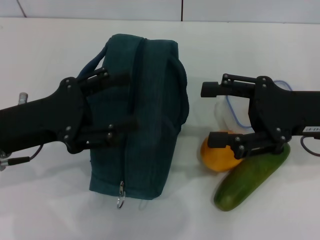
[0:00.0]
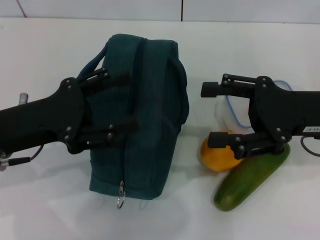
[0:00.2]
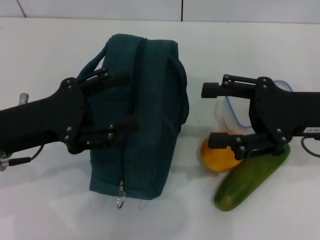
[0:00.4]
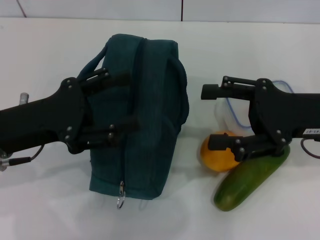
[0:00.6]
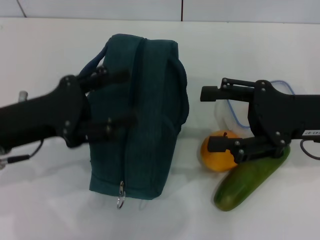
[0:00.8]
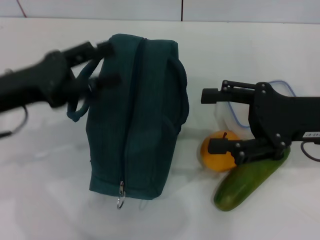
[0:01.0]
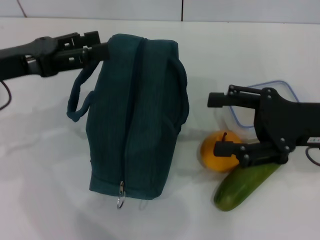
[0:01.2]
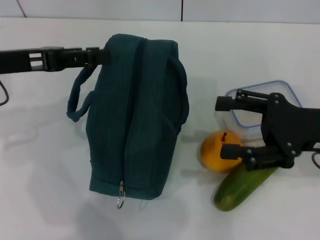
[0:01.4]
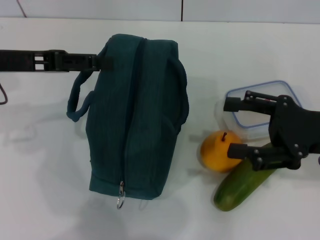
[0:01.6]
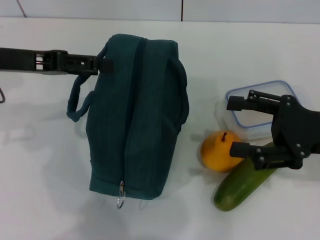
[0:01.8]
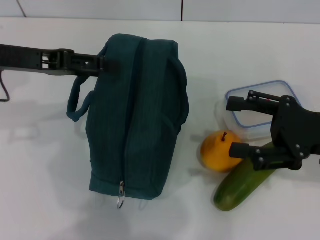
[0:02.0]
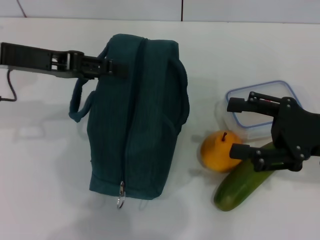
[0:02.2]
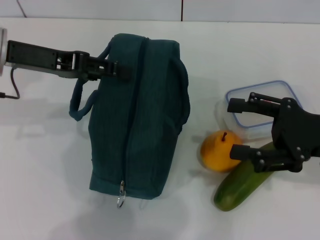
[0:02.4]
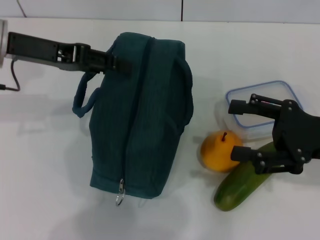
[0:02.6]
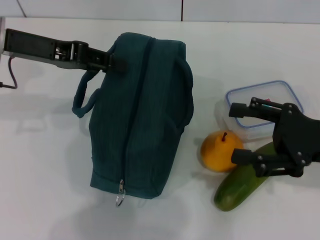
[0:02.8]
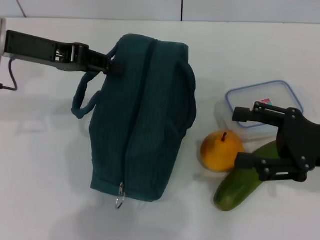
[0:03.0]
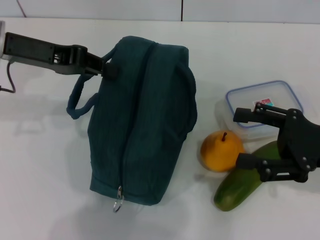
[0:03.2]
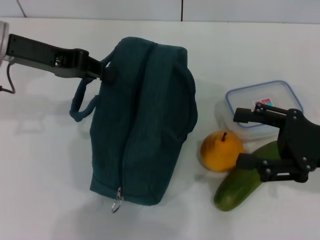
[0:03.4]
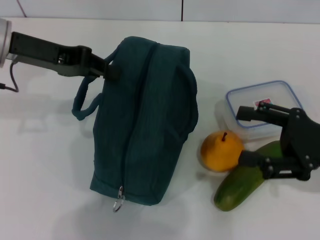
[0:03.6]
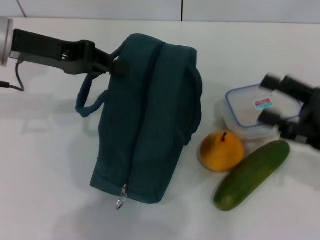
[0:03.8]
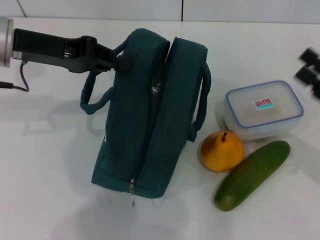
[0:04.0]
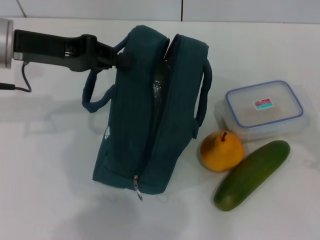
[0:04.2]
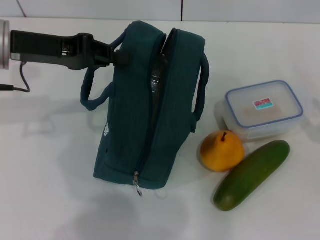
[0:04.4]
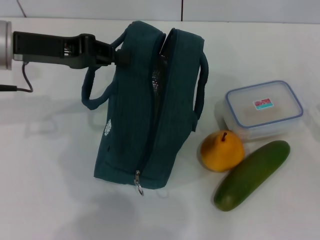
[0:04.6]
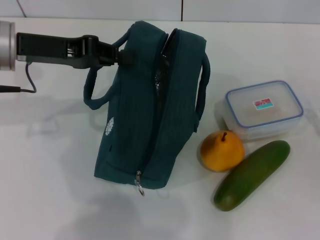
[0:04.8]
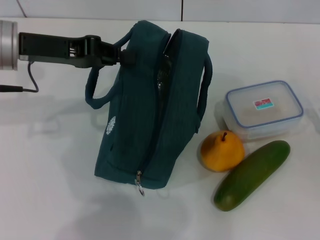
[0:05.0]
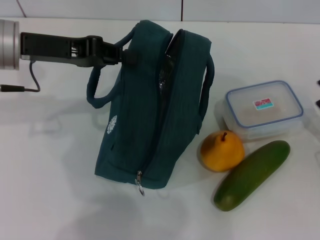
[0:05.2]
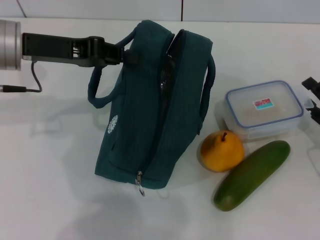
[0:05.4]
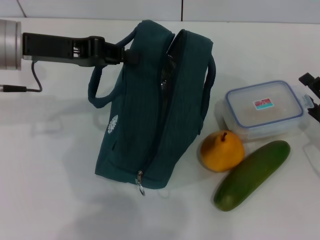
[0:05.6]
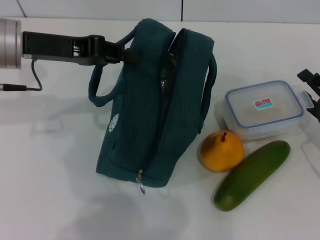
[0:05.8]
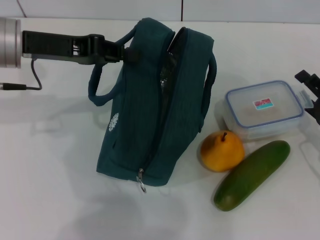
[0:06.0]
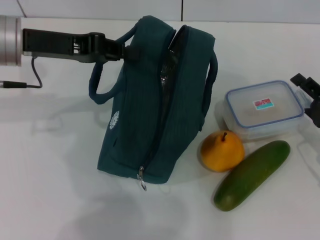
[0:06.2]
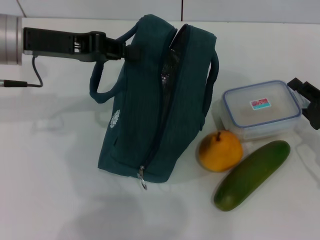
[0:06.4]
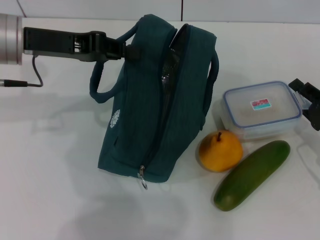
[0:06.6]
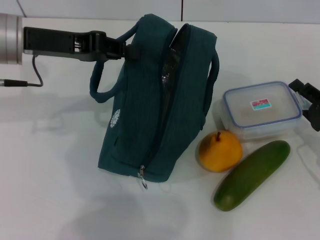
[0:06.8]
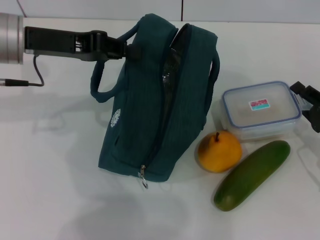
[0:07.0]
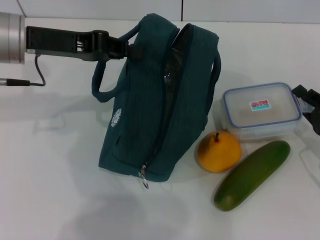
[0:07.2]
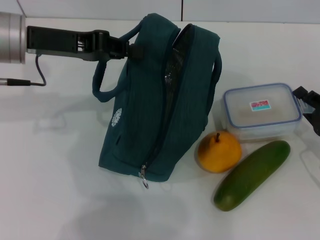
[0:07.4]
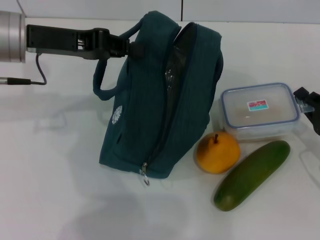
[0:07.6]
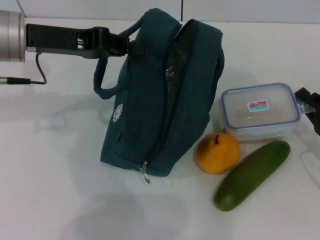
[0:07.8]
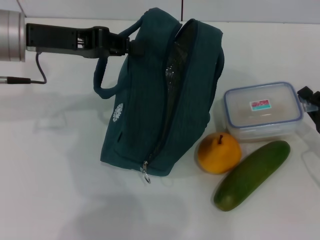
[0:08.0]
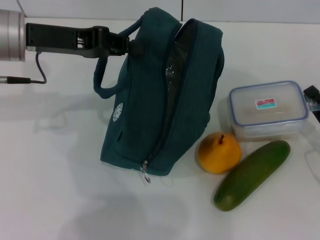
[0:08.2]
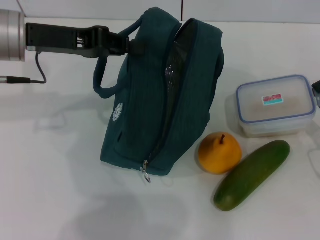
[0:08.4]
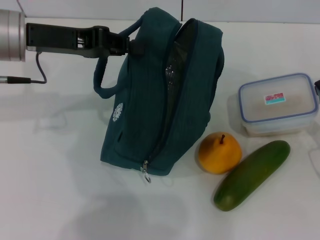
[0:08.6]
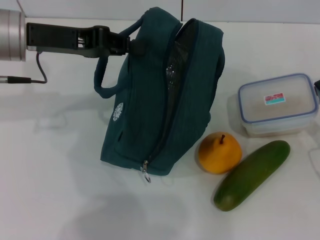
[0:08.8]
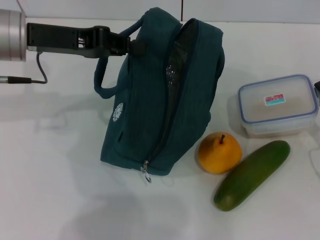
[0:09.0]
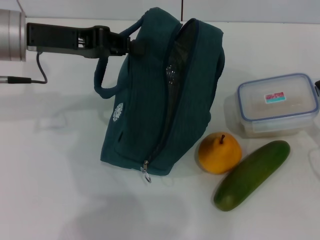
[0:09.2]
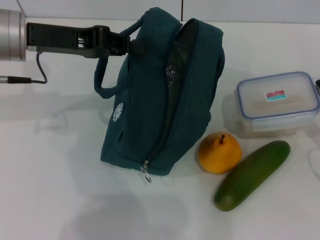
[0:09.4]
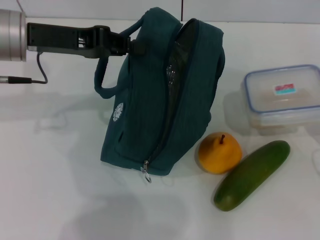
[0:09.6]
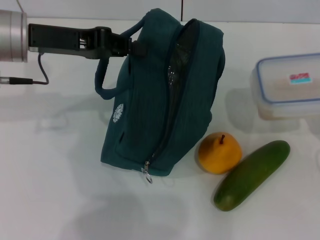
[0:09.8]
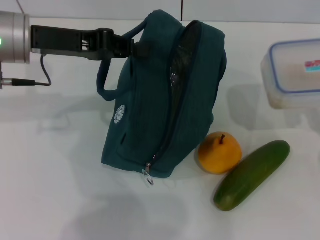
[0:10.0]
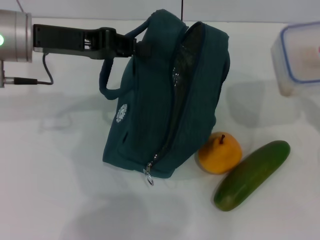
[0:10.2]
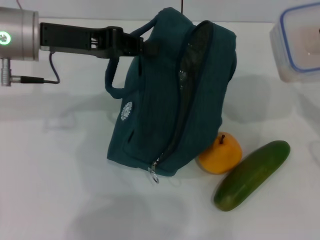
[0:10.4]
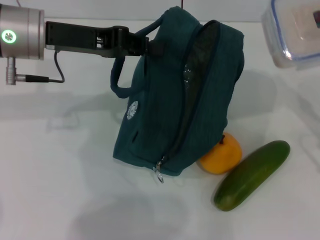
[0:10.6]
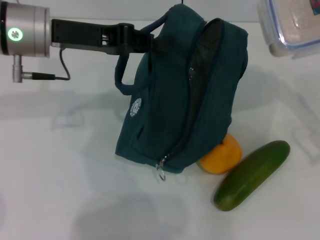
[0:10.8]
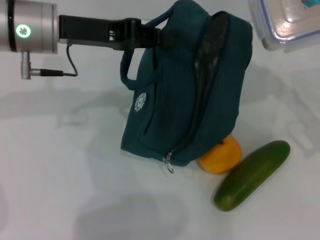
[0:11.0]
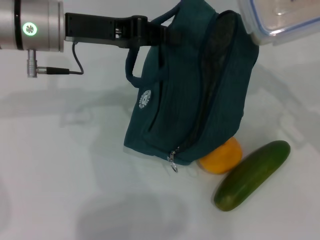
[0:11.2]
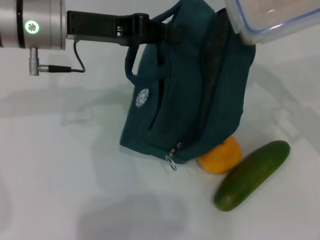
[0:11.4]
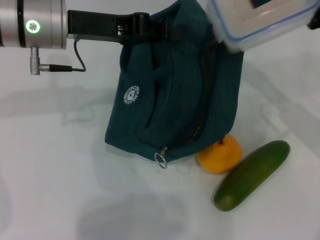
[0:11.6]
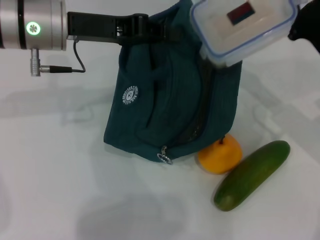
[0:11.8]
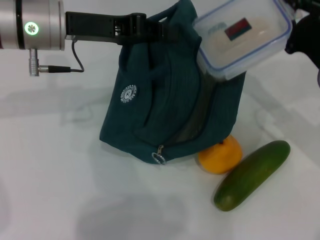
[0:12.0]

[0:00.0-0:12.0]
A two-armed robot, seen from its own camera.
Step, 0:00.0 to 0:03.6: Hold the lunch bag with your left hand.
Step, 0:03.8 to 0:08.0: Pick up the lunch box with your right hand.
0:00.0 to 0:01.6: The left gripper heads forward and upward, covering approximately 10 cm.
0:01.6 to 0:03.0: The left gripper closes.
0:03.0 to 0:04.4: The left gripper closes its fingers; the right gripper goes approximately 10 cm to the right and downward.
0:04.4 to 0:06.0: The right gripper moves forward, roughly 5 cm.
0:06.0 to 0:07.6: The right gripper closes.
0:07.6 to 0:09.0: The grippers stay close to where they were, moving slightly.
0:09.0 to 0:10.4: The right gripper goes some 5 cm upward.
0:10.4 to 0:12.0: The right gripper heads to the left and forward, covering some 10 cm.

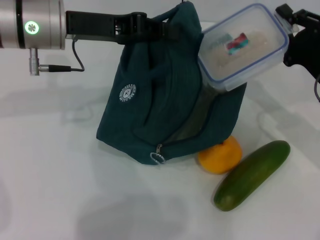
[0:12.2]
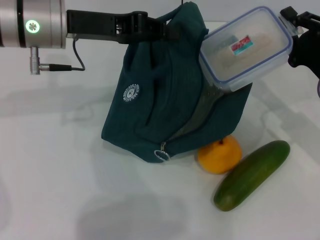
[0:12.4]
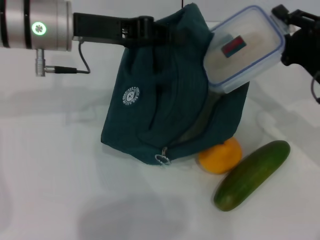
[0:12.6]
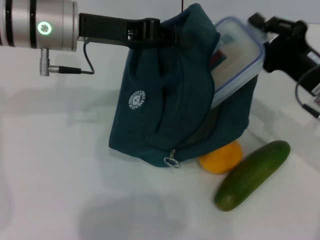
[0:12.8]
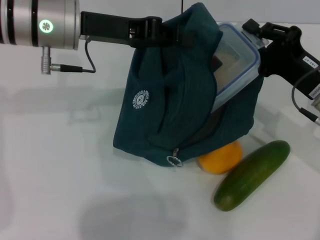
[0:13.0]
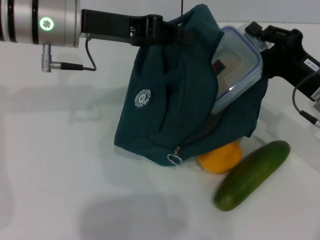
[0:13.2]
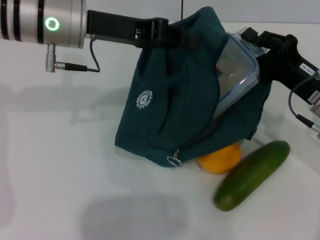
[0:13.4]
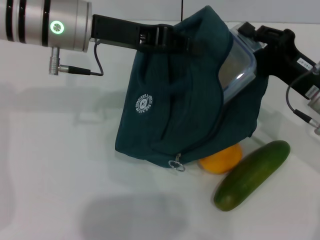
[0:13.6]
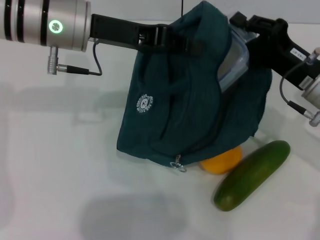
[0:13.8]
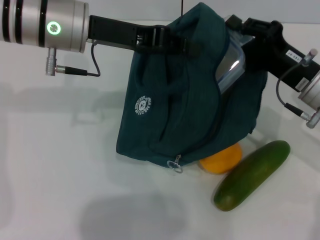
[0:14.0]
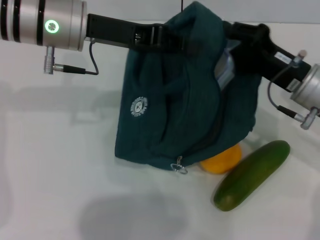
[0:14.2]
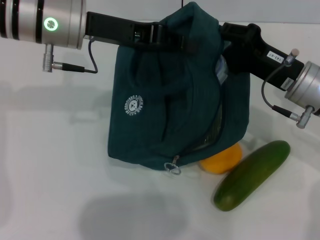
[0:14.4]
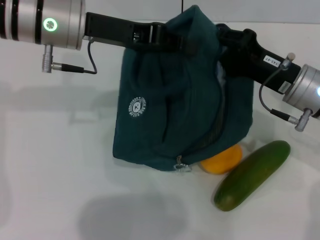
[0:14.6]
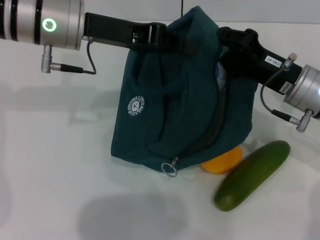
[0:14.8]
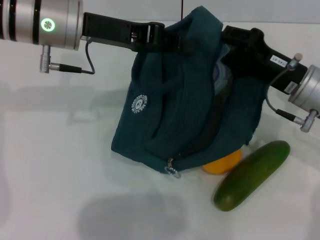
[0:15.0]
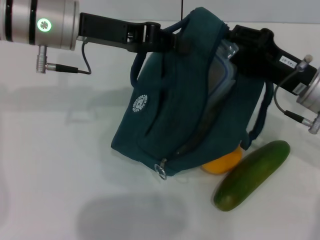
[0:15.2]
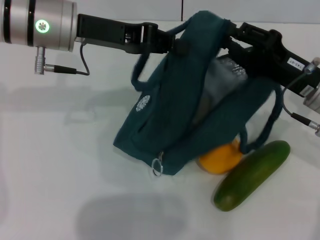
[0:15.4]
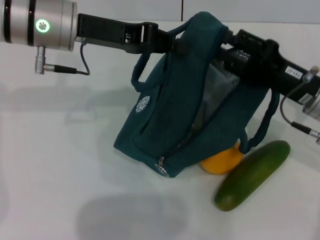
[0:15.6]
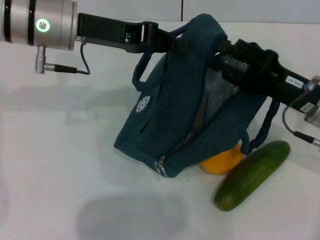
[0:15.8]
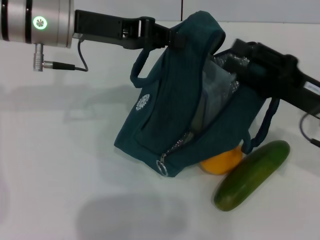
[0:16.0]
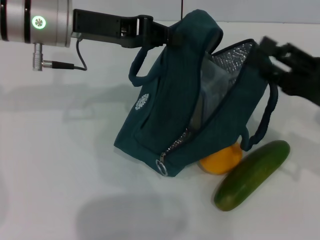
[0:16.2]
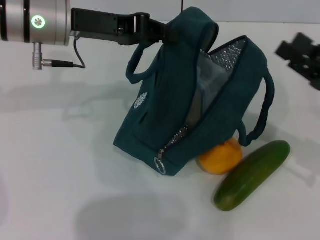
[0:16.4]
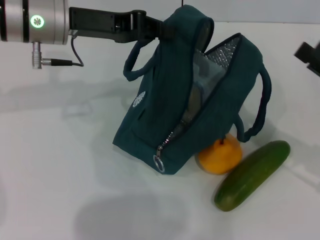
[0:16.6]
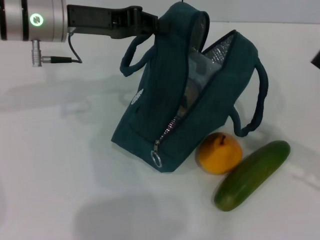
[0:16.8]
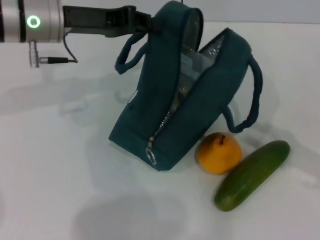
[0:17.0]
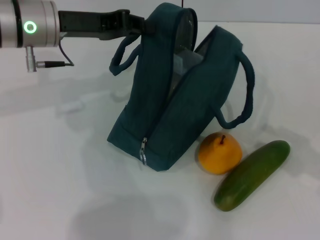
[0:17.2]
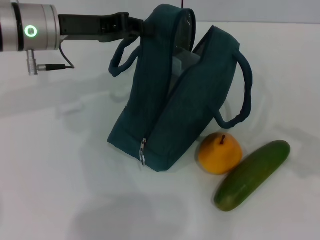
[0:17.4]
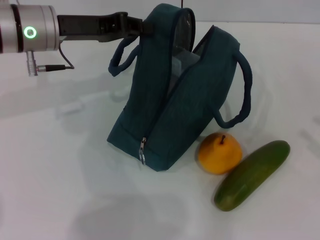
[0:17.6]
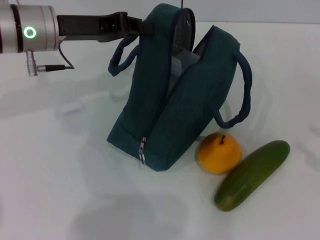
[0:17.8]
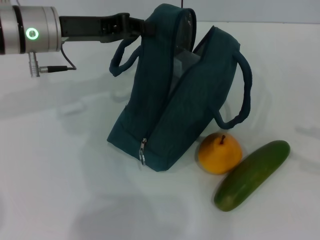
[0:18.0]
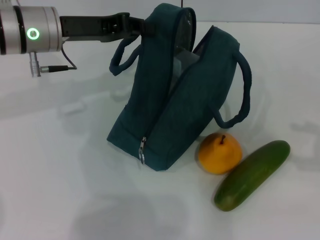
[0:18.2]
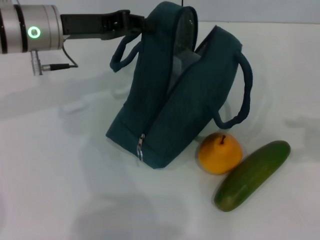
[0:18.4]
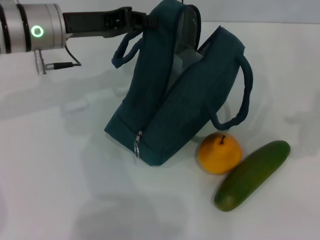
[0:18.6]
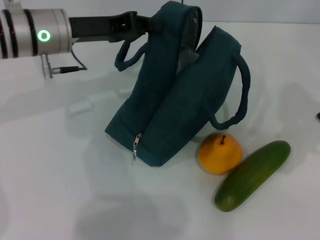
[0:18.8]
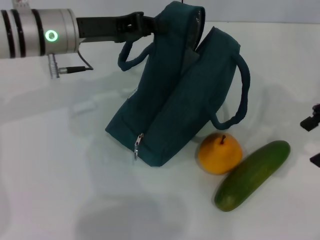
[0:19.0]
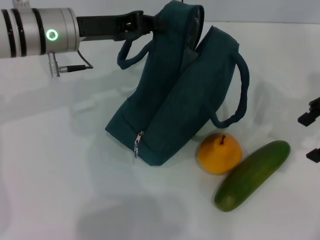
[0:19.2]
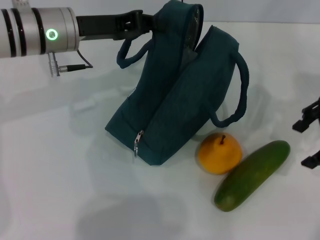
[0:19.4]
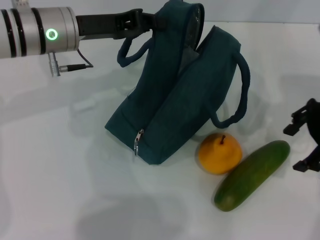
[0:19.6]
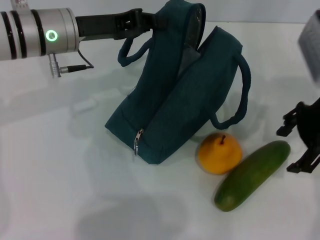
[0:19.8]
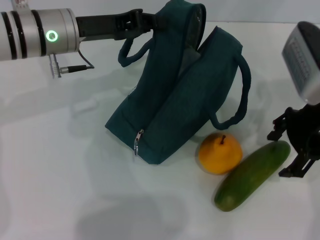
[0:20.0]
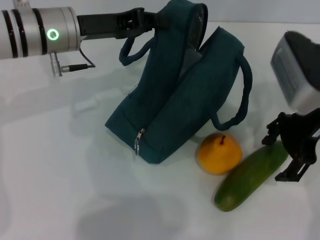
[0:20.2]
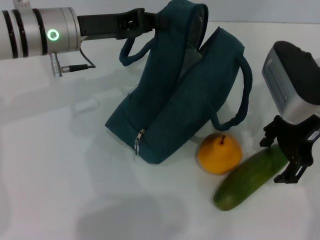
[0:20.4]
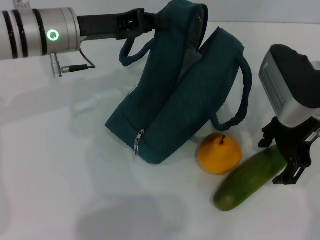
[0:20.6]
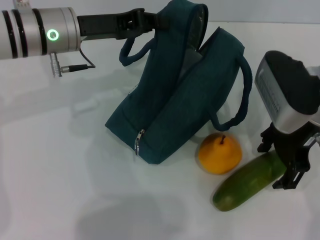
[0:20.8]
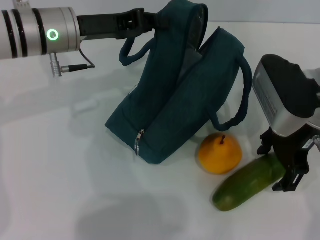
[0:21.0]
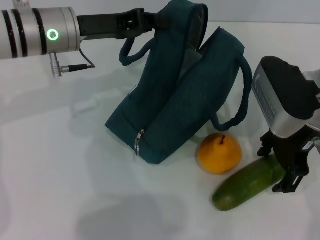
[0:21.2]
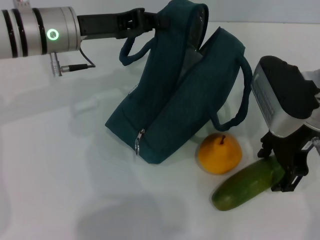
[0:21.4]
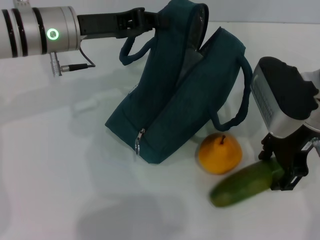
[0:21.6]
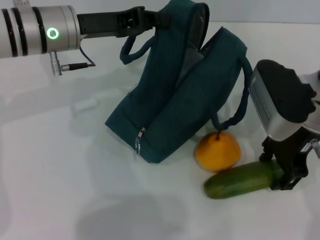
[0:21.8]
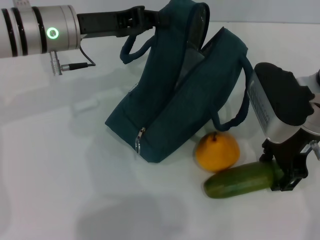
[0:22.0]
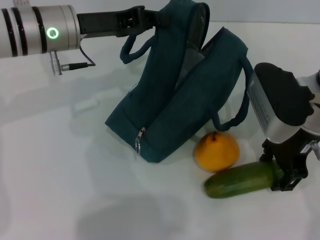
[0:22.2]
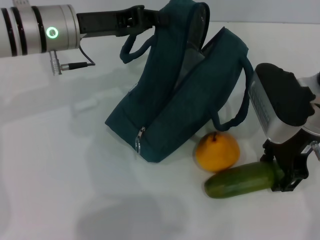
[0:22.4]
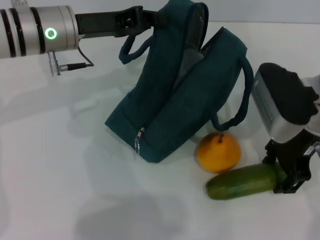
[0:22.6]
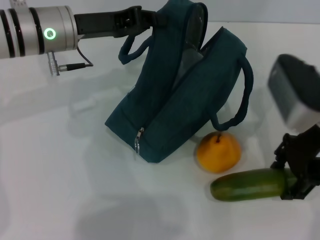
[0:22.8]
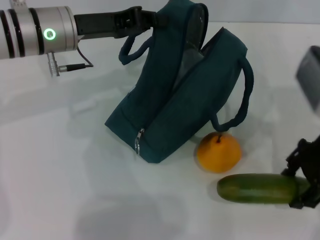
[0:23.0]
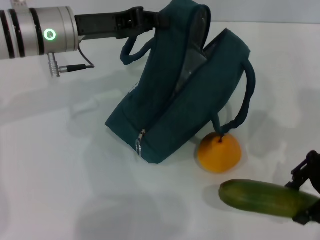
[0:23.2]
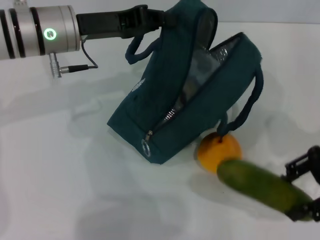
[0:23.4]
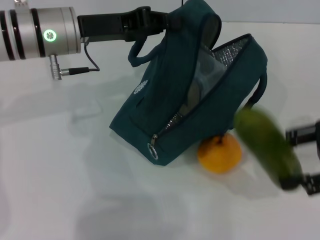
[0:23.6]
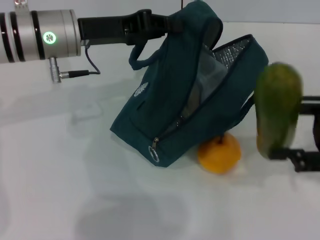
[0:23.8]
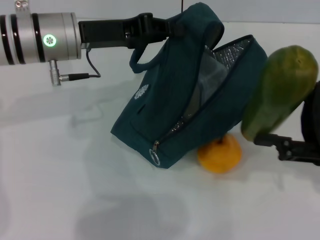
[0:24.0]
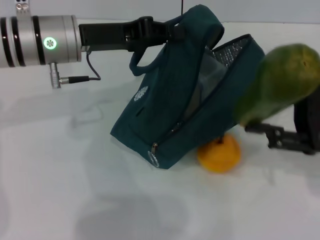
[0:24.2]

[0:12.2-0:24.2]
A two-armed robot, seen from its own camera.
Step, 0:12.2 to 0:15.6: Place the lunch box into the lunch bag with your right hand.
Step, 0:15.8 to 0:22.4: Pick up the cucumber with your right hand.
0:13.8 to 0:15.2: The grippers move only a little.
0:15.2 to 0:16.6: The right gripper is displaced to the right and backward by approximately 10 cm, and opens its fingers.
0:16.6 to 0:18.2: The right gripper heads to the right and upward, covering some 15 cm.
0:18.2 to 0:19.8: The right gripper travels to the left and forward by about 25 cm.
0:19.8 to 0:21.2: The right gripper ends up approximately 5 cm from where it was.
0:21.2 to 0:22.6: Both grippers stay put.
0:22.6 to 0:24.2: The right gripper is displaced to the right and backward by some 10 cm.
